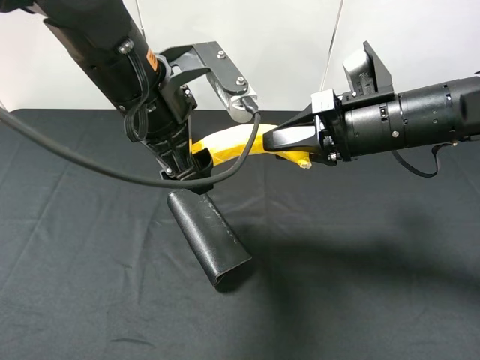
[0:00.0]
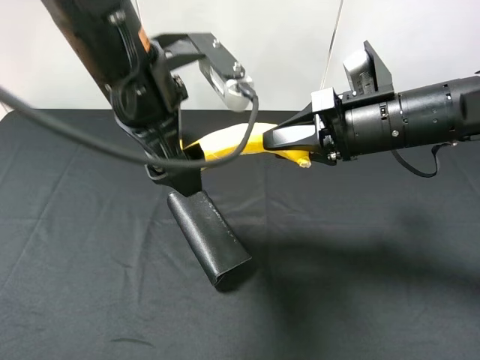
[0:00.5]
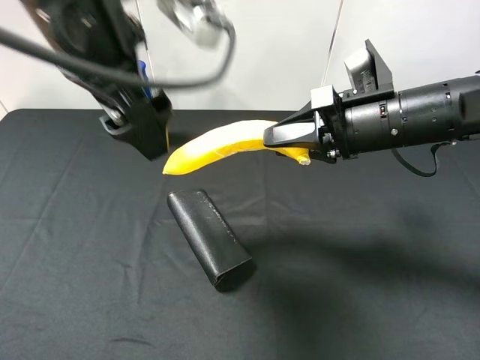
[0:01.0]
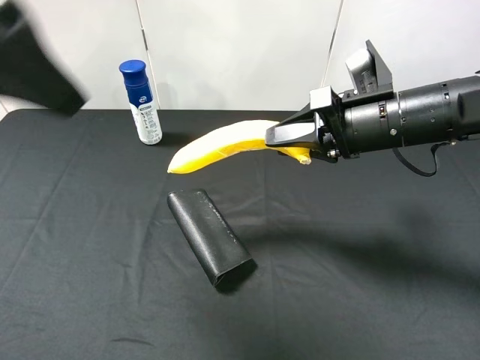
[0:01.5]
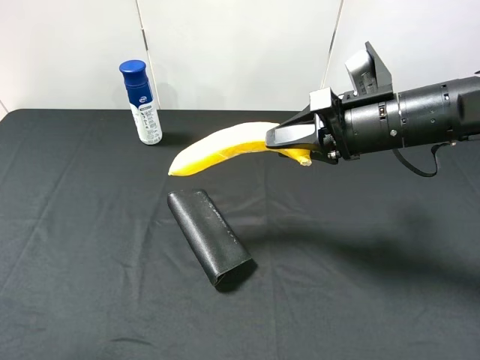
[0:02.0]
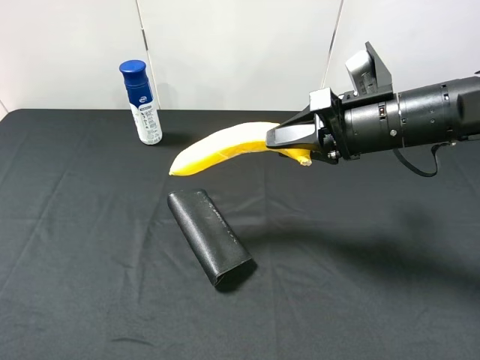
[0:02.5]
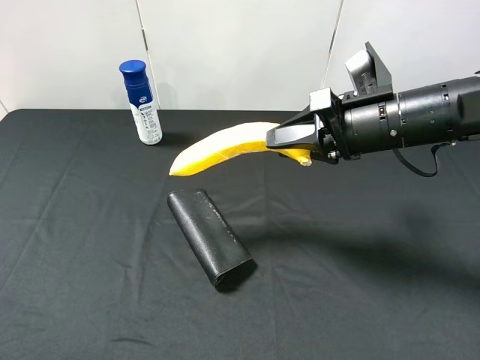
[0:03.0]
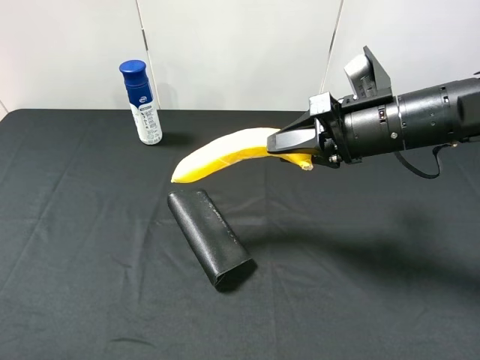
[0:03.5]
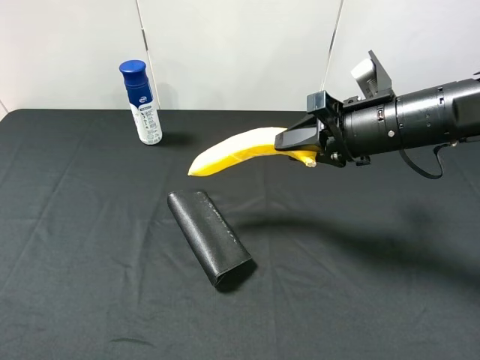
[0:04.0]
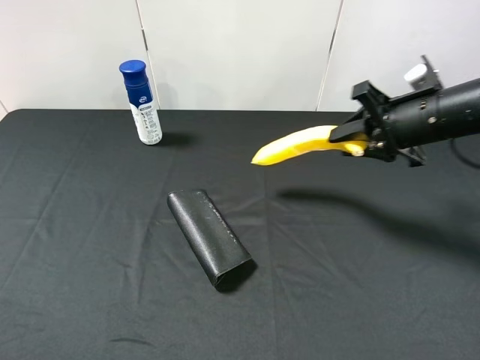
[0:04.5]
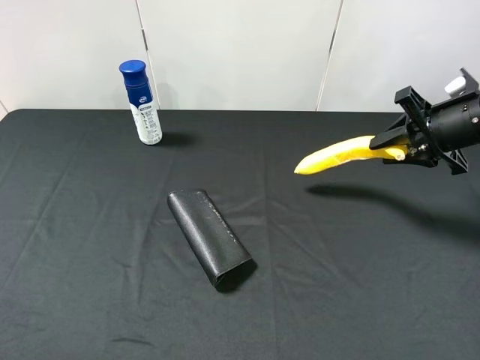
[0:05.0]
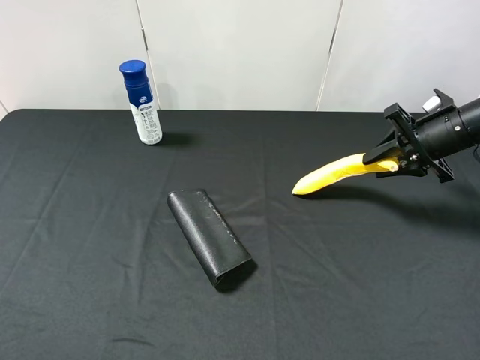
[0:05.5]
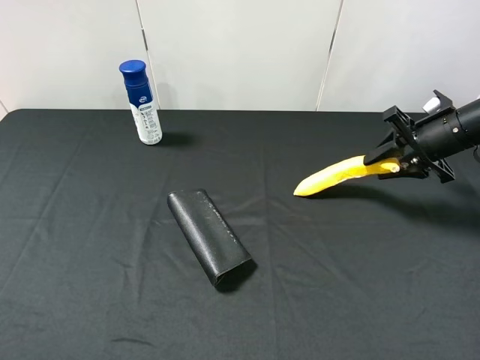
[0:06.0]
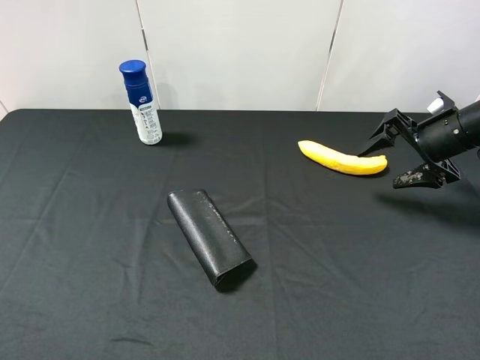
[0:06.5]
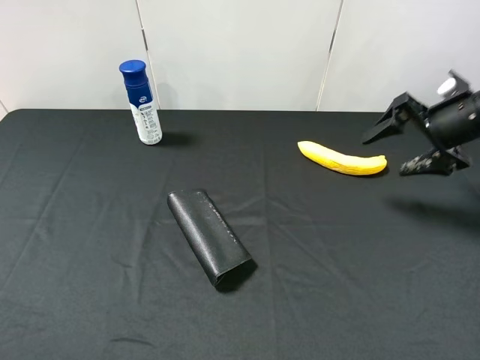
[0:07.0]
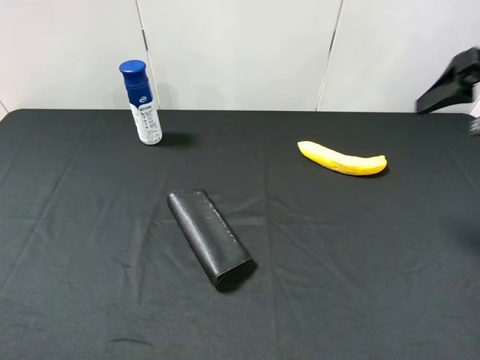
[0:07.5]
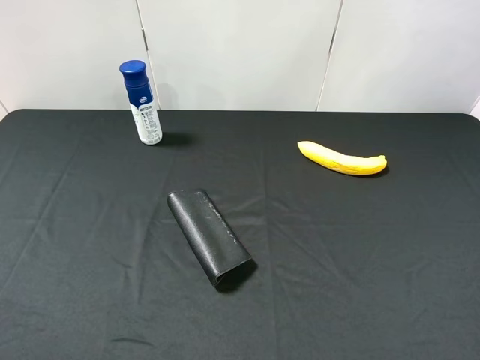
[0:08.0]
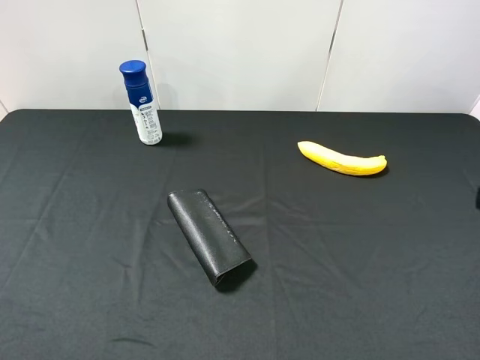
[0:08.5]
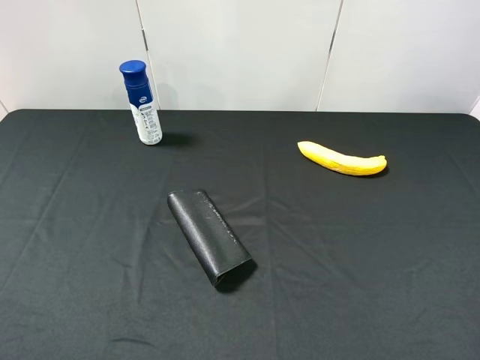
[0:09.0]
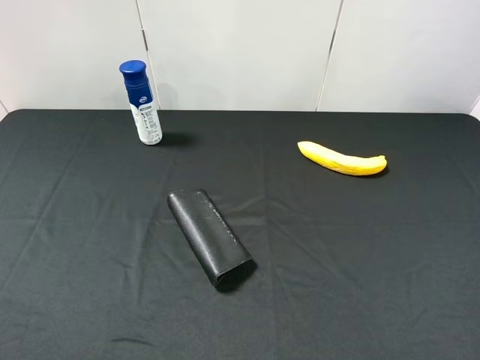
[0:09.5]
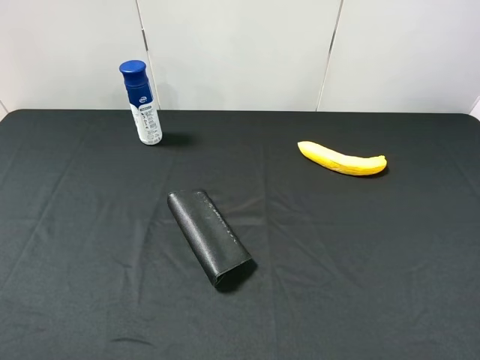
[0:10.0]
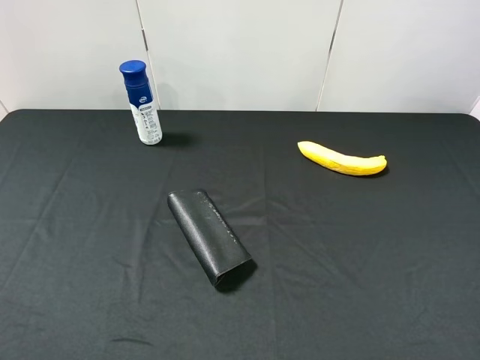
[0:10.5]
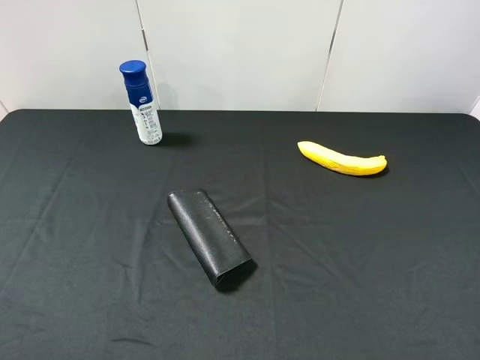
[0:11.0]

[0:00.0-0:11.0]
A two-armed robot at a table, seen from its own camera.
Task of the whole recording: use the left gripper to pick up the item and transfer it from the left gripper to the right gripper.
0:00.0 to 0:02.0: The left gripper travels backward and to the left by about 30 cm.
0:02.0 to 0:03.5: The left gripper changes place by roughly 5 cm.
0:03.5 to 0:05.5: The right gripper travels to the right and forward by about 15 cm.
0:05.5 to 0:07.5: The right gripper is displaced upward and backward by approximately 15 cm, and opens up.
0:07.5 to 0:09.0: The right gripper is displaced backward by roughly 25 cm.
